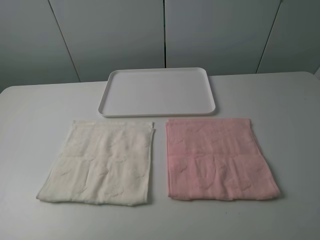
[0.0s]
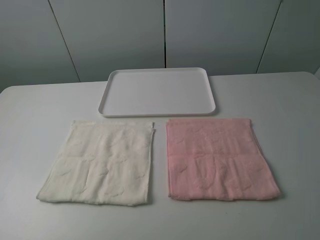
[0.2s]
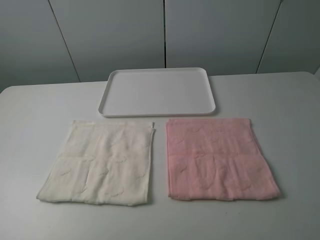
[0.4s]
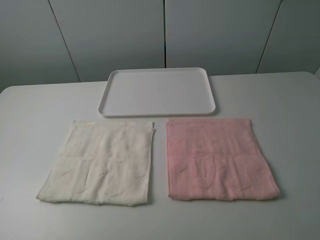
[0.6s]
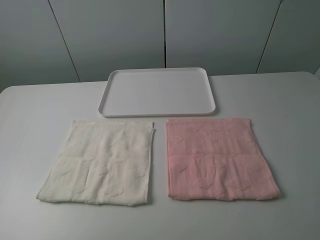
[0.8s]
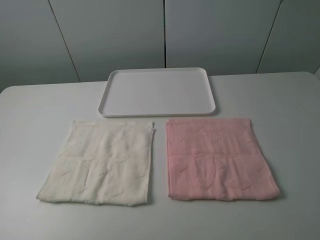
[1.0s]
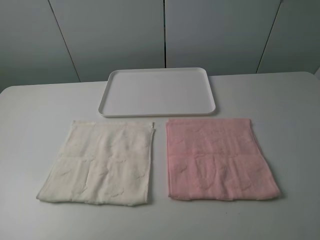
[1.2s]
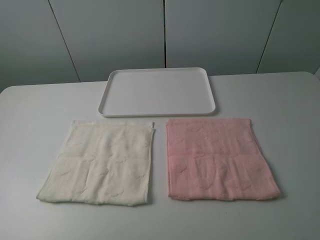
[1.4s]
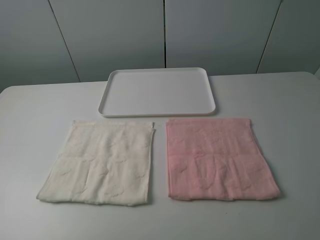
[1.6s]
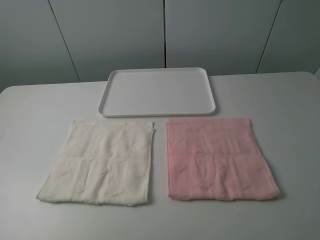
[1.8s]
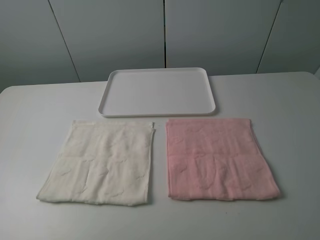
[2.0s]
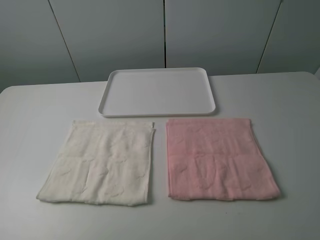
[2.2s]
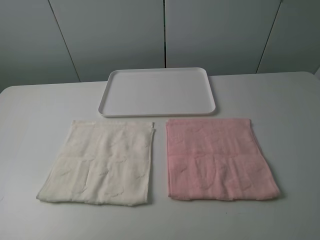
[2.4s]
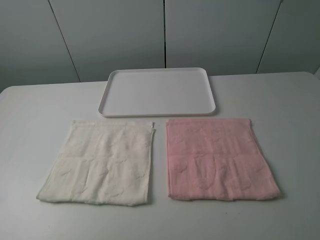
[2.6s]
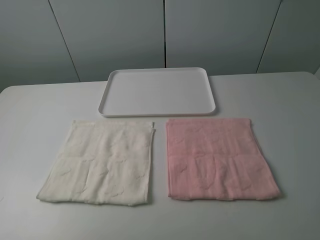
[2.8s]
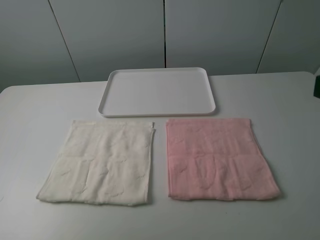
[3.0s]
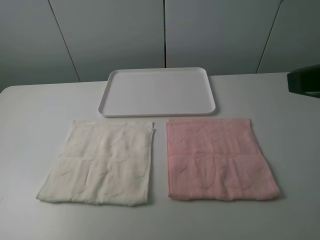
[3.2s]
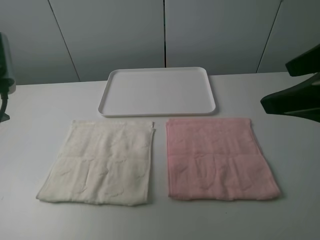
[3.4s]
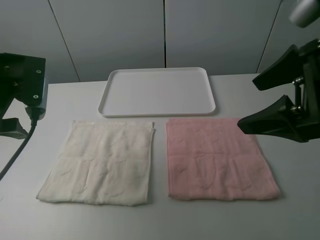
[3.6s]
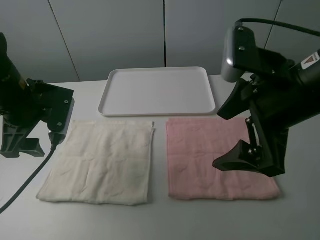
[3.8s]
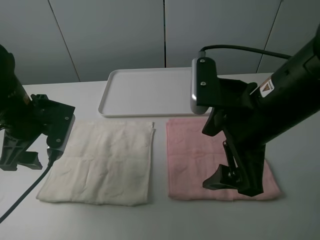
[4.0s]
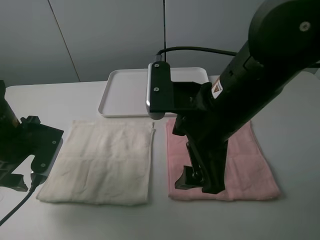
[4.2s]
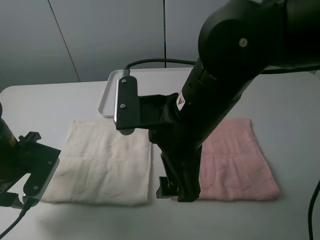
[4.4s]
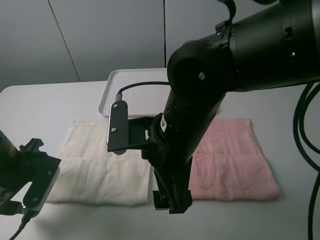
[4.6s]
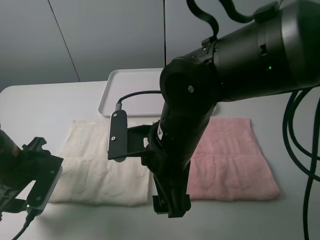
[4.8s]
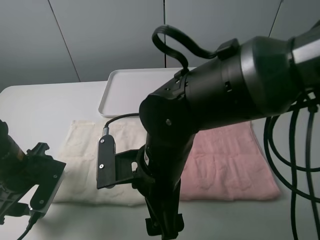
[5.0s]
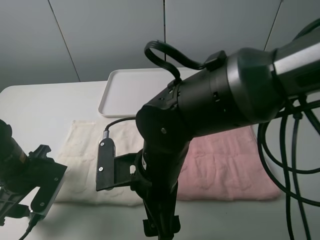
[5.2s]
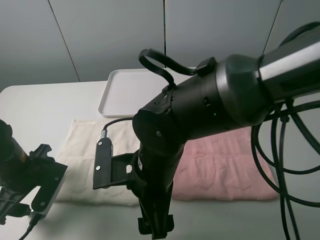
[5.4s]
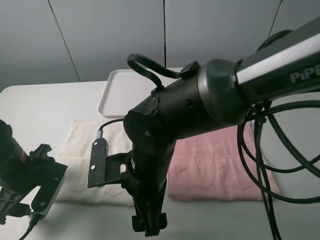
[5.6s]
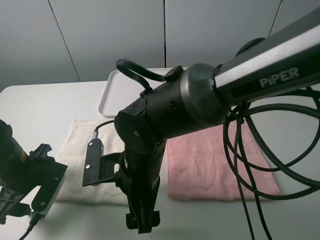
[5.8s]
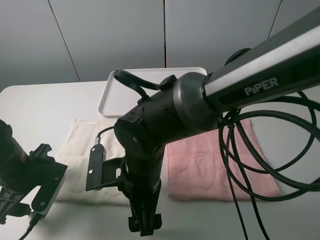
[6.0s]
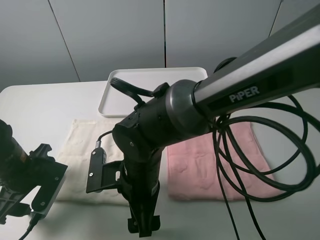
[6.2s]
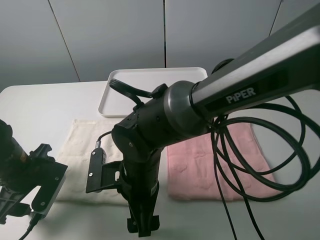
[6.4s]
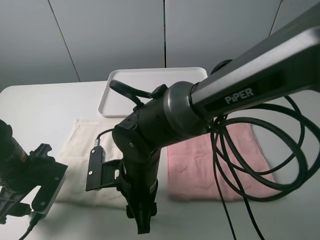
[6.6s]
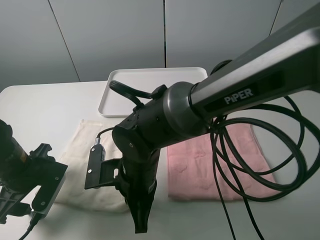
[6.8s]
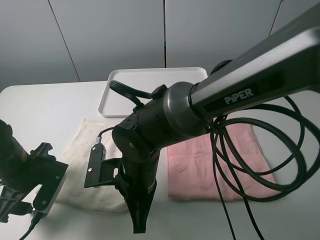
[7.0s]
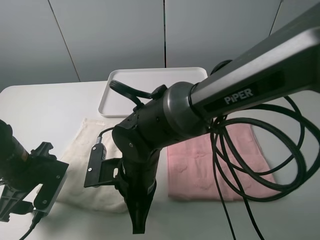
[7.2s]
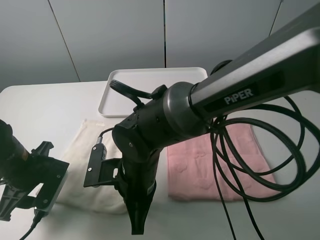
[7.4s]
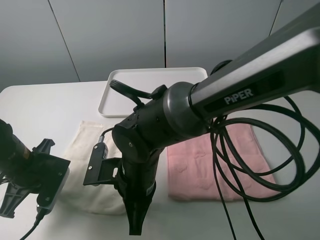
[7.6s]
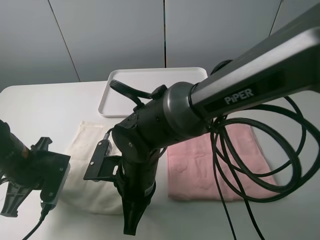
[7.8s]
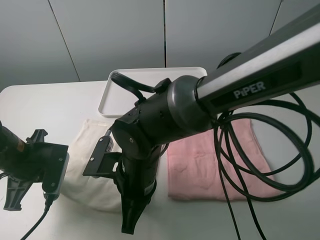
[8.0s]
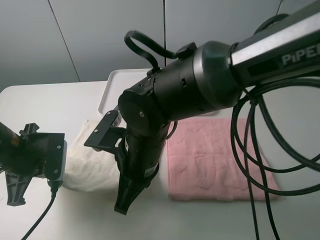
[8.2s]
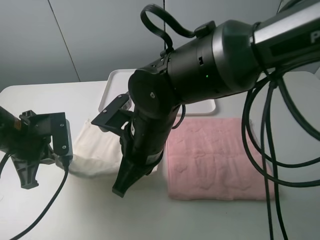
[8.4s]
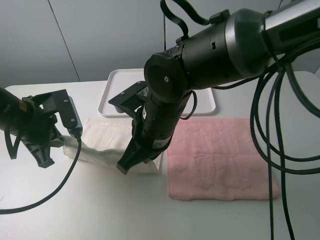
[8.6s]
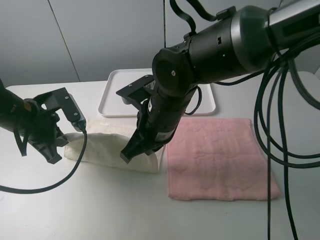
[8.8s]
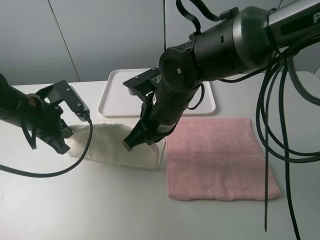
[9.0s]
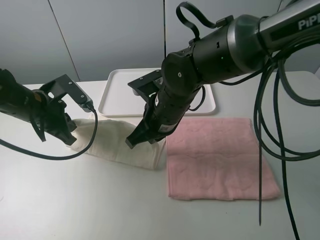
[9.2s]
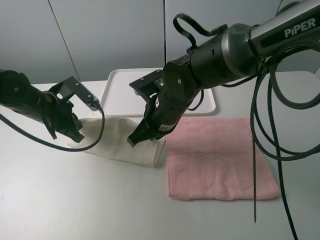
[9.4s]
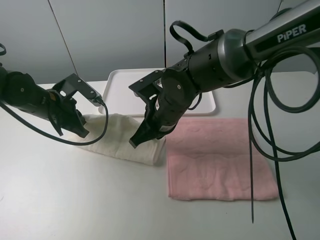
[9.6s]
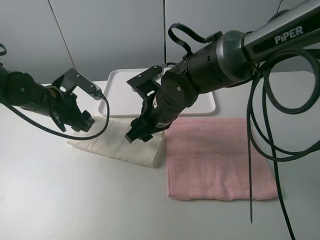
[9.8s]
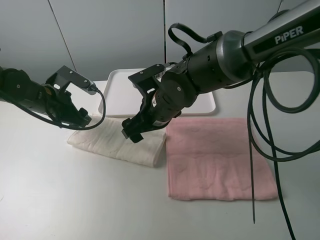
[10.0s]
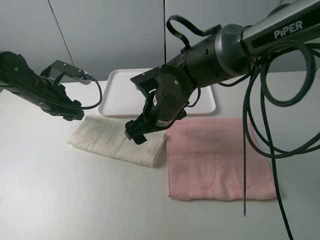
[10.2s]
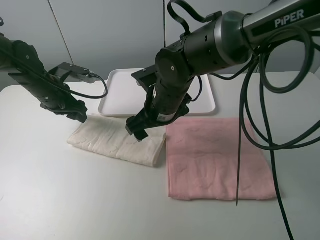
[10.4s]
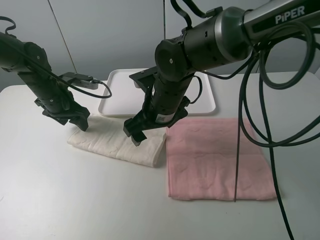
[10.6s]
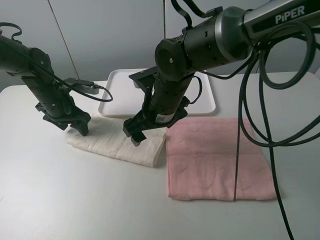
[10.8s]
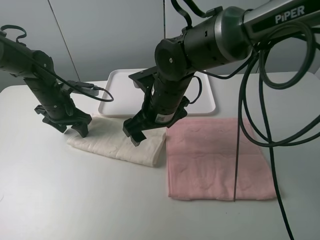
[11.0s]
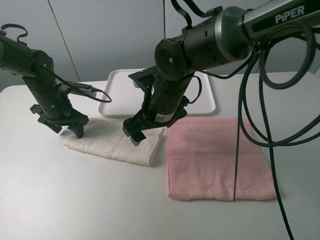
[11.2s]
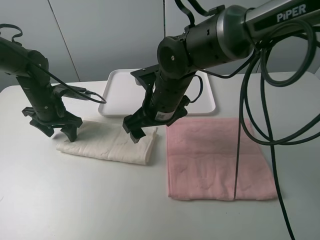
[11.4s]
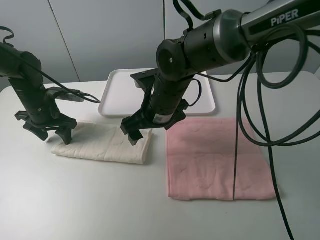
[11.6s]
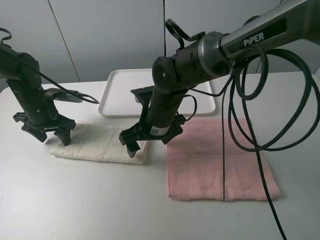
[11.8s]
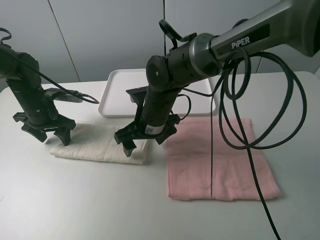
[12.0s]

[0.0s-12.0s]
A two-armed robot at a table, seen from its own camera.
Task of the whole recording: fold one of the towels by two grippers and place it on the tray,then fold another towel by two grippers and place it on the folded towel.
Step, 0.0s to 7.6s: Grasp the white towel with the left gripper.
Step, 8.0s to 9.8s: Fold the white towel upwards with the left gripper.
Step, 10.2s to 11.2s: Press the white towel with the left gripper.
0.0s to 1.6s: Both grippers stay about where they are.
3.0s to 4.4s: The left gripper moves downward and forward, roughly 25 cm; the right gripper goes approximately 25 cm to the left and downward.
4.4s to 6.0s: The right gripper shifts some 15 cm downward and to the left.
6.0s to 7.6s: The right gripper closes up. The left gripper closes its fingers.
7.6s to 9.0s: The grippers both shift forward and upward by roughly 10 cm.
9.0s to 10.4s: The left gripper heads forward, covering roughly 10 cm, and opens up; the right gripper opens its fingers.
10.4s to 12.0s: The left gripper changes place by about 5 cm.

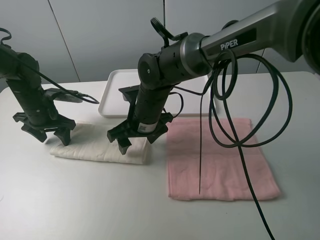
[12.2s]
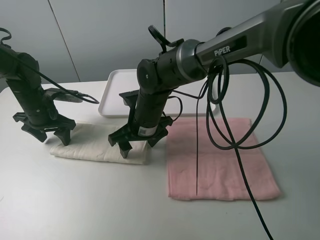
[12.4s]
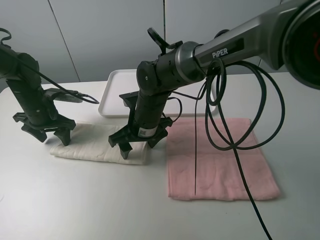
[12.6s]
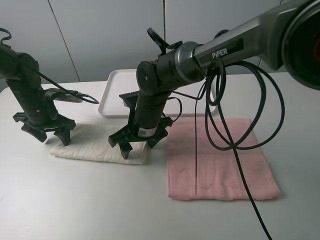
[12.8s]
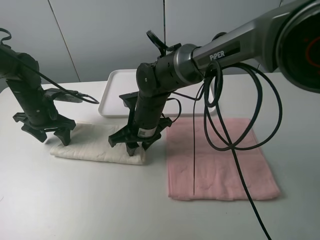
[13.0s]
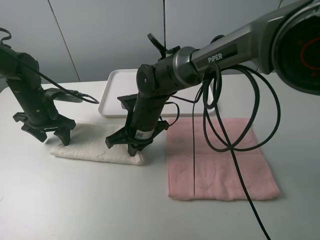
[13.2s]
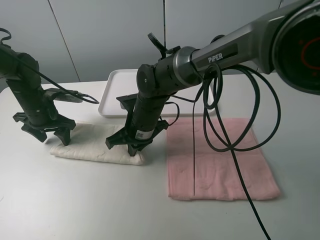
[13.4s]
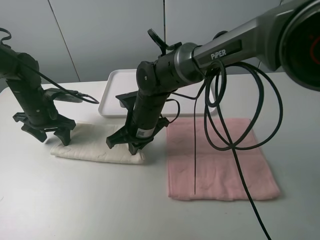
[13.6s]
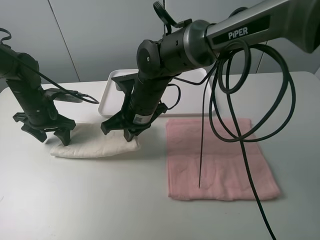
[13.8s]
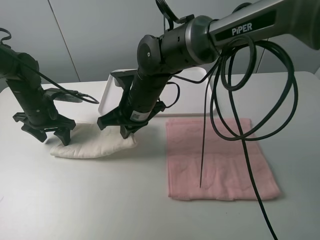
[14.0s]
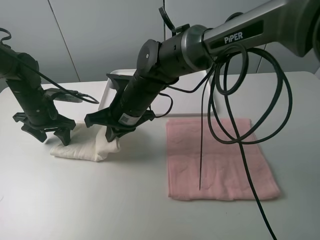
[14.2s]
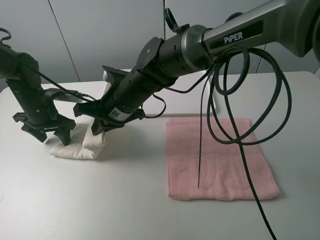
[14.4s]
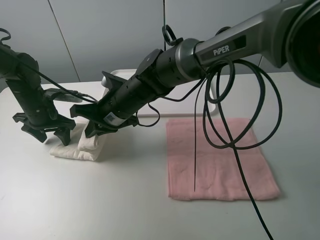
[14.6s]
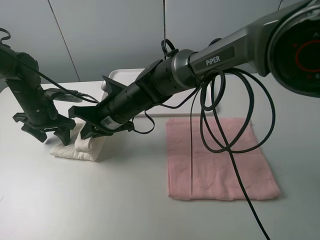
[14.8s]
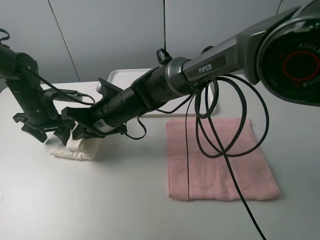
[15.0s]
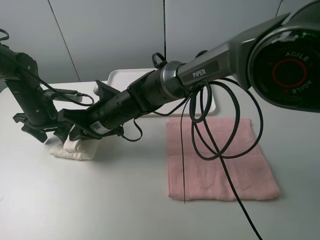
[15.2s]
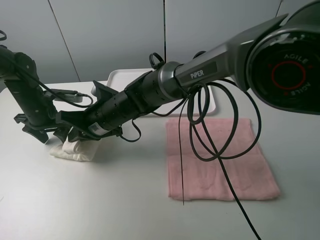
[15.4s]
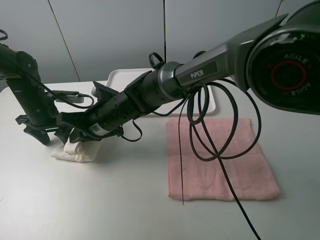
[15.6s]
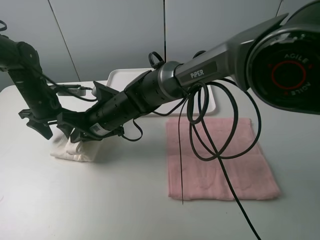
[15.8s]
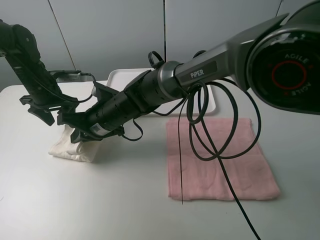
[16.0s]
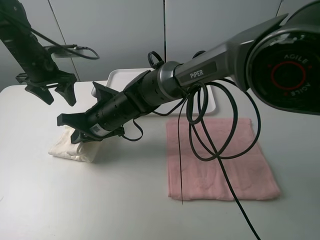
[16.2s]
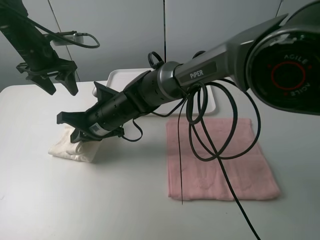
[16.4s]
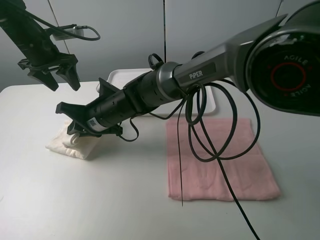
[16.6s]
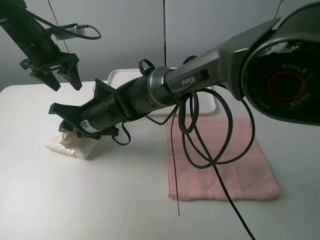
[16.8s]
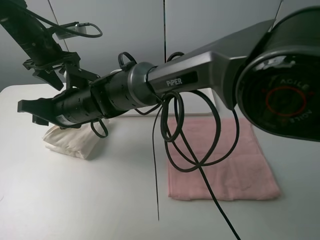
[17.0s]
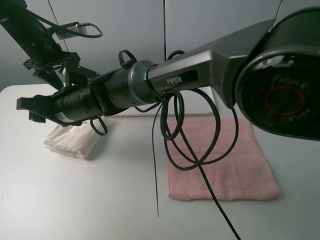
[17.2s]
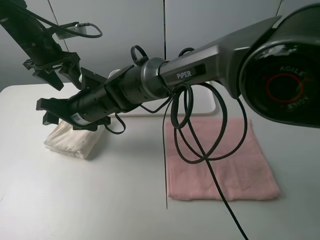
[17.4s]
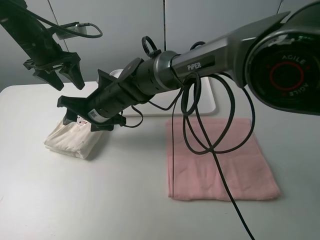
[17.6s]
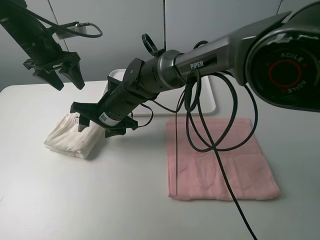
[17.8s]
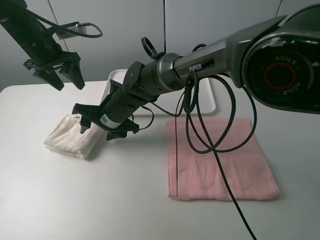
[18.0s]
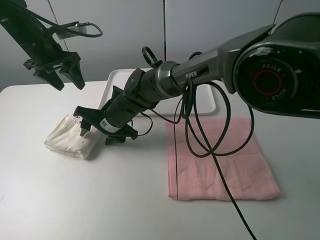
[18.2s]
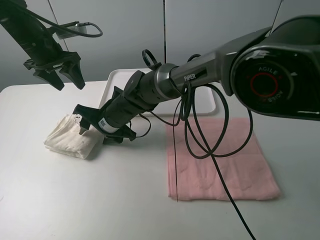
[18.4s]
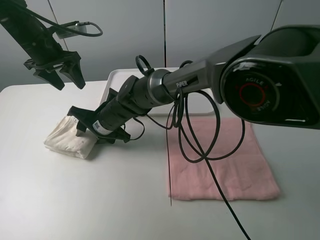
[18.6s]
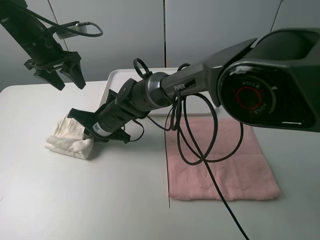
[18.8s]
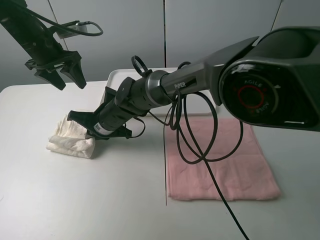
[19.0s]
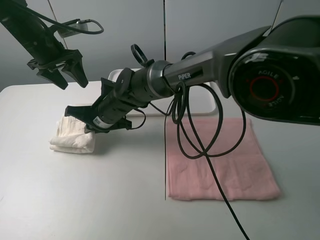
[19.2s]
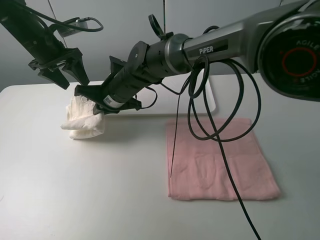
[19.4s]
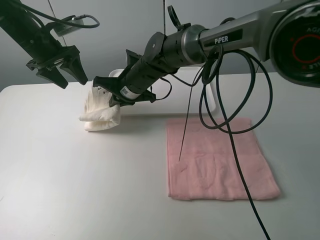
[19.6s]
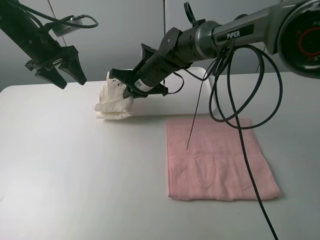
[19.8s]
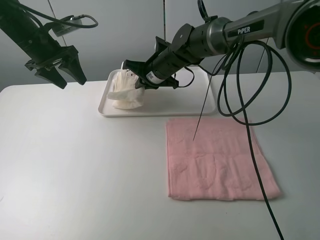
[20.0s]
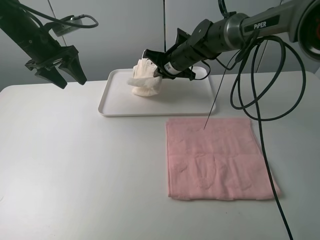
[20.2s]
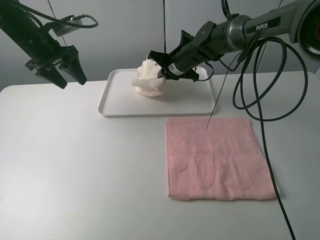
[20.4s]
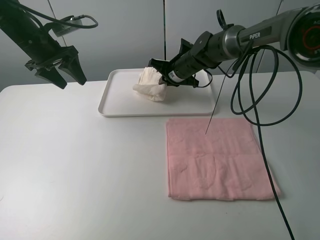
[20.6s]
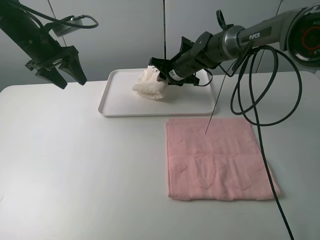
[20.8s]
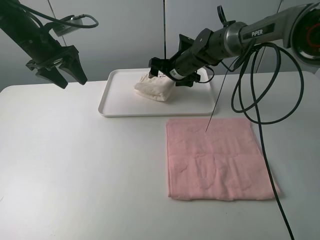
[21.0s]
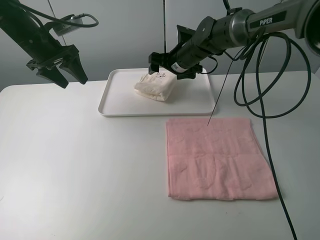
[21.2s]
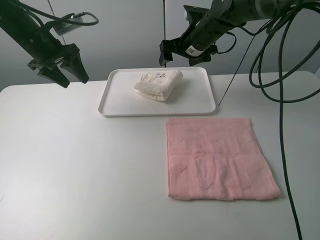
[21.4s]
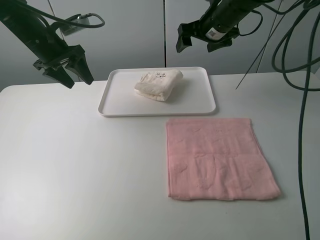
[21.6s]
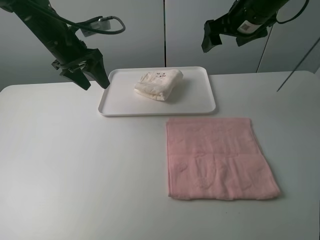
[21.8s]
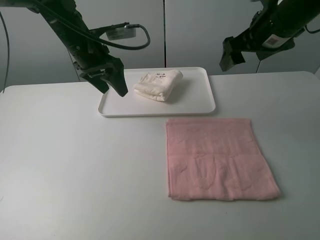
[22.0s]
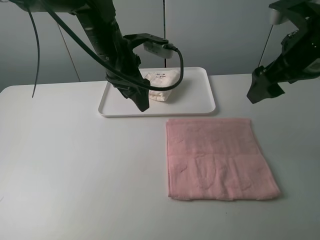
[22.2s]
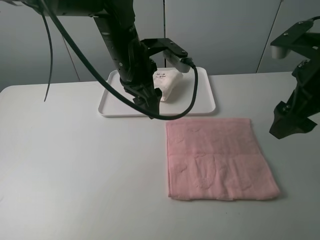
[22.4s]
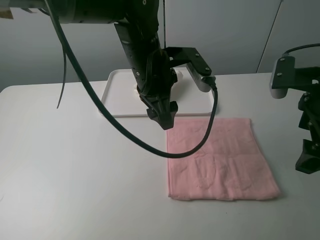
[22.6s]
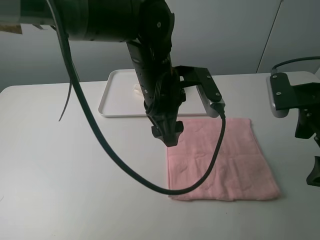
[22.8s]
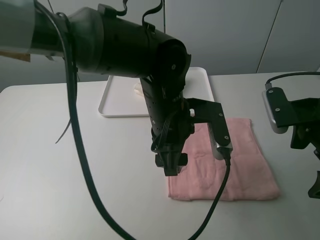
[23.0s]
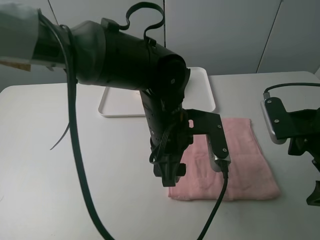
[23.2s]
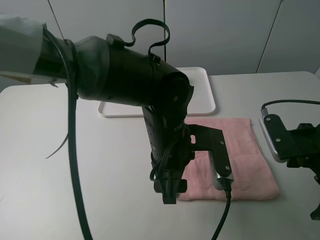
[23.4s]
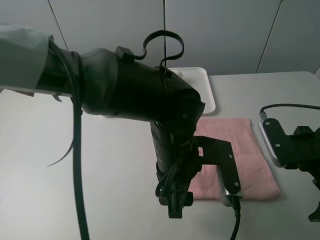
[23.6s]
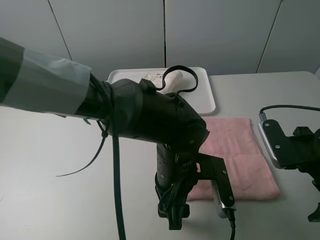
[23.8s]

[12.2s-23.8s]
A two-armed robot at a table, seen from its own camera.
Task of the whole recording: fold one of the towels by two grippers and place it on the tray,then fold another towel by two grippers and place it on the folded towel.
Step, 12.2s to 13.2s: Grasp the white towel with the right gripper.
Step, 13.4s to 17.2s: Fold the white towel from right to left with right gripper.
Step, 17.4s to 18.8s: Grasp the white towel with the right gripper.
Step, 19.0s to 21.0s: Move the white towel to the plate with the right gripper.
12.2s to 13.6s: The right gripper closes.
13.6s to 15.0s: The right gripper heads to the left, covering roughly 5 cm.
15.0s to 16.6s: The left gripper shifts about 15 cm upward and forward.
16.6s to 18.0s: The right gripper opens up.
18.0s to 19.4s: The right gripper changes place by approximately 5 cm, and closes up.
19.4s to 21.0s: The right gripper goes roughly 20 cm to the right and forward, and opens.
21.0s to 22.4s: The right gripper shifts approximately 35 cm backward, to the right and upward. The left gripper travels to the right by approximately 25 cm.
22.4s to 23.8s: The left gripper travels backward, downward and to the right by about 20 cm. The right gripper goes about 10 cm downward and backward.
